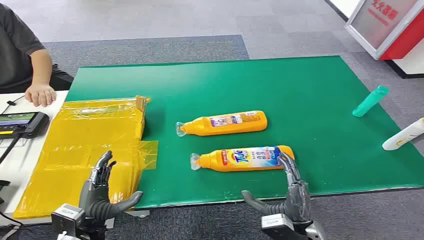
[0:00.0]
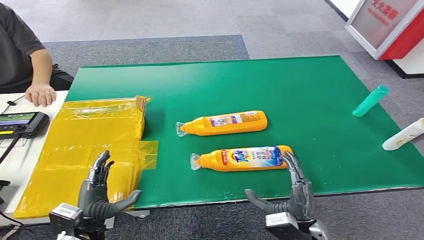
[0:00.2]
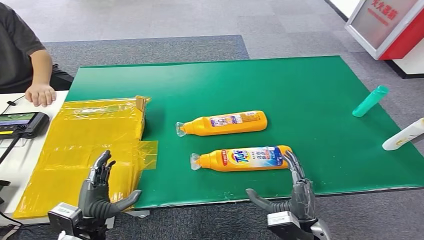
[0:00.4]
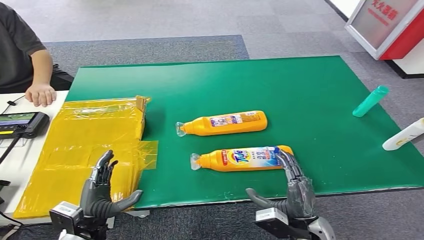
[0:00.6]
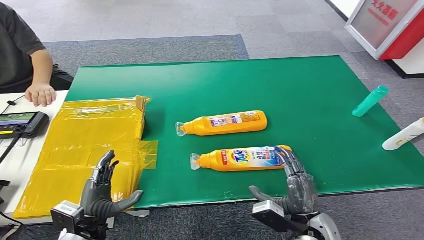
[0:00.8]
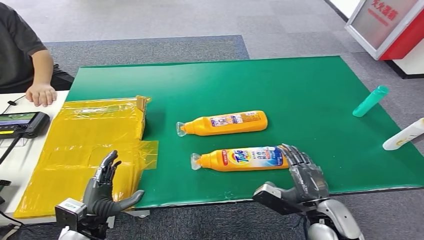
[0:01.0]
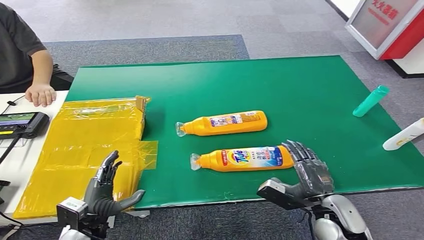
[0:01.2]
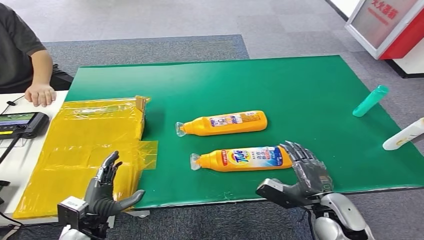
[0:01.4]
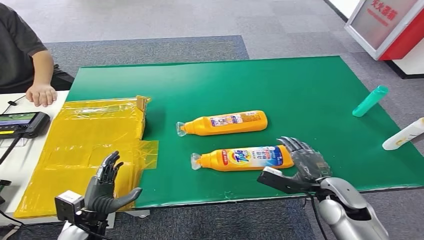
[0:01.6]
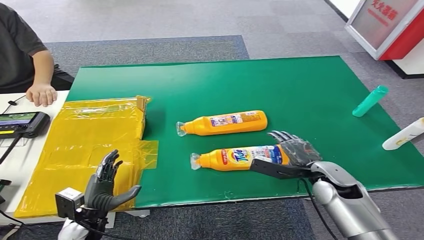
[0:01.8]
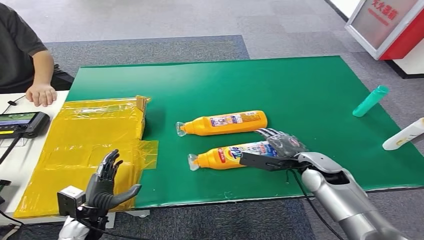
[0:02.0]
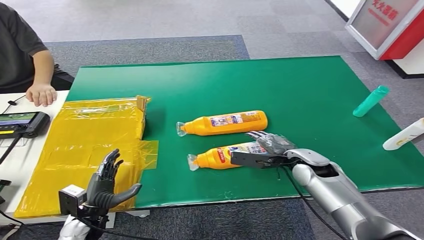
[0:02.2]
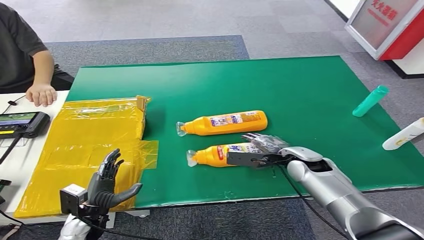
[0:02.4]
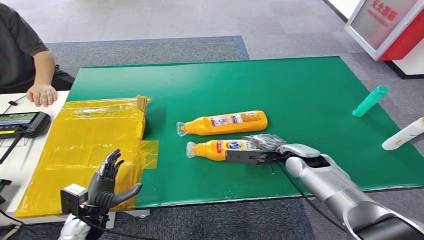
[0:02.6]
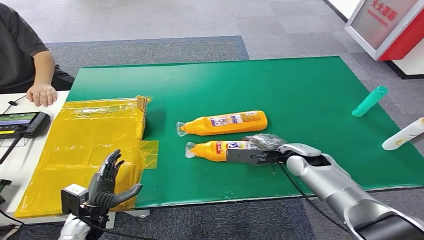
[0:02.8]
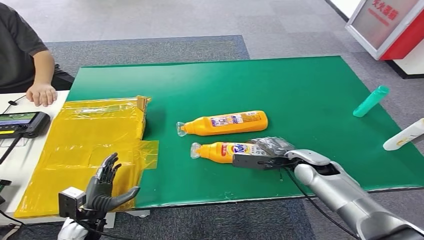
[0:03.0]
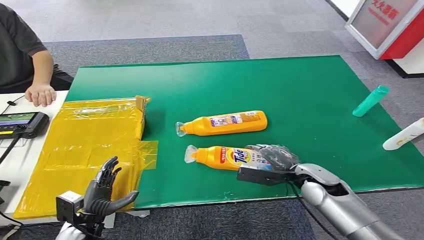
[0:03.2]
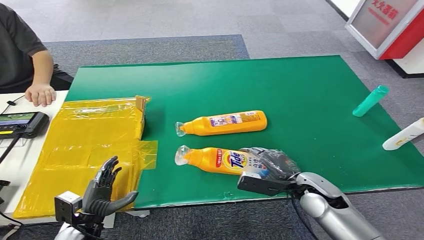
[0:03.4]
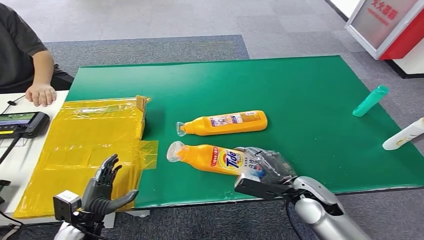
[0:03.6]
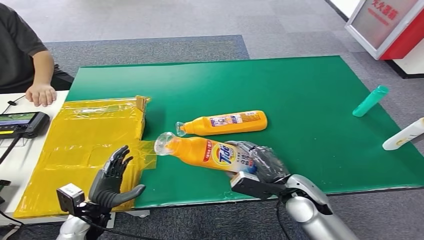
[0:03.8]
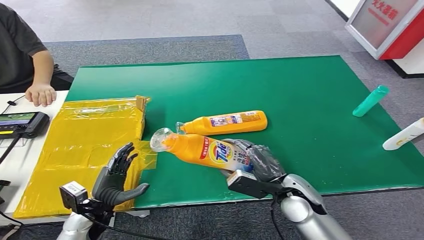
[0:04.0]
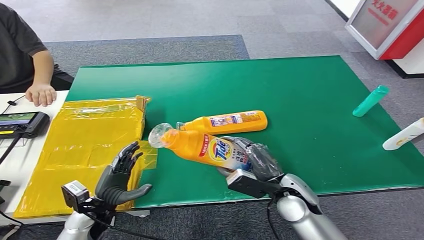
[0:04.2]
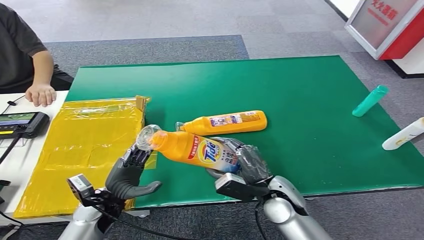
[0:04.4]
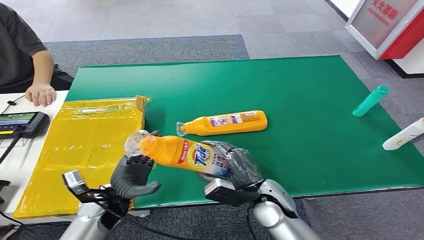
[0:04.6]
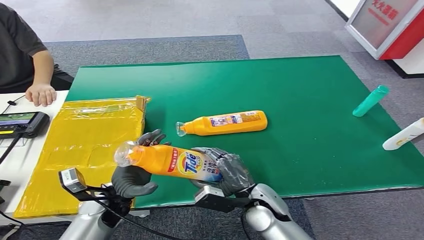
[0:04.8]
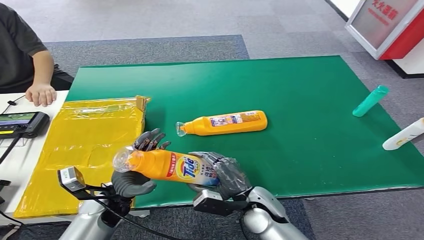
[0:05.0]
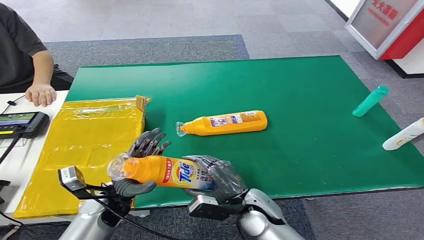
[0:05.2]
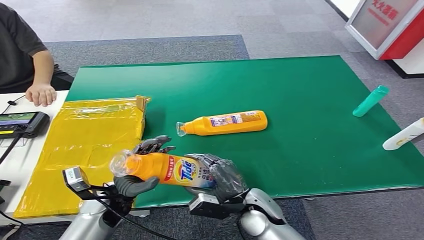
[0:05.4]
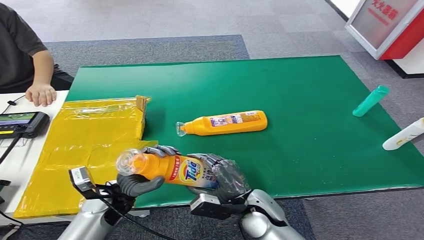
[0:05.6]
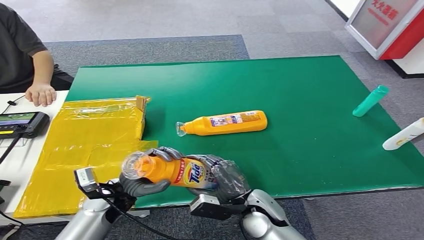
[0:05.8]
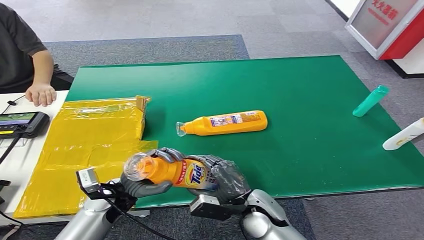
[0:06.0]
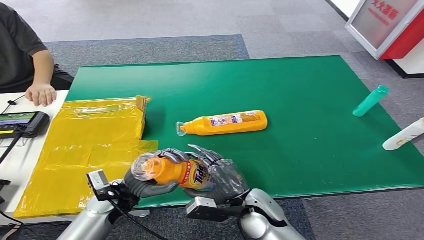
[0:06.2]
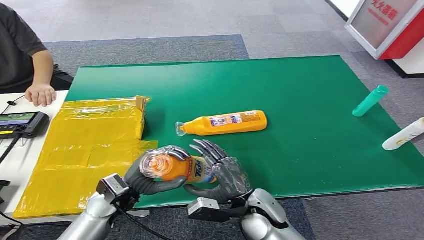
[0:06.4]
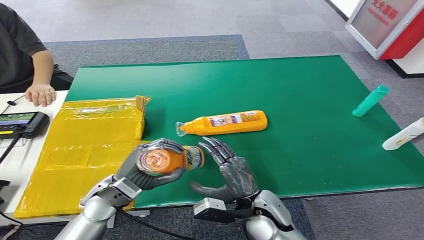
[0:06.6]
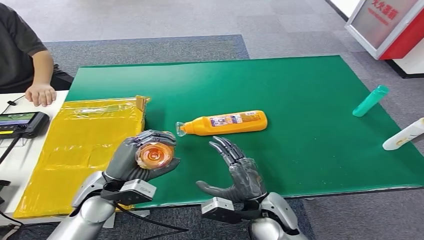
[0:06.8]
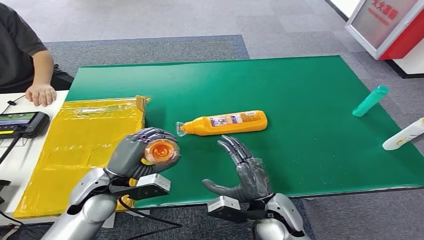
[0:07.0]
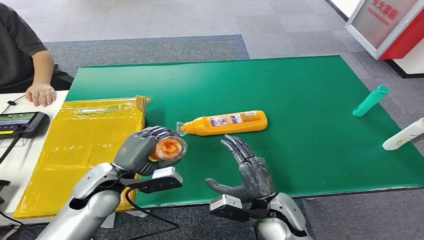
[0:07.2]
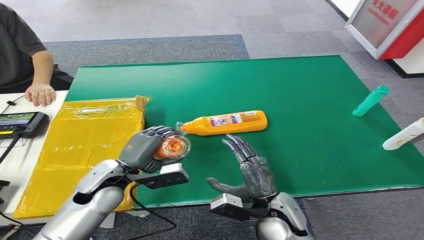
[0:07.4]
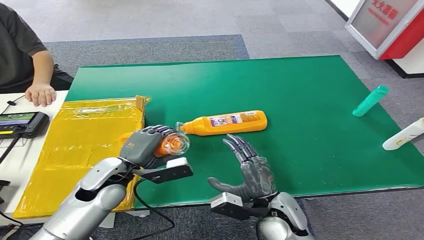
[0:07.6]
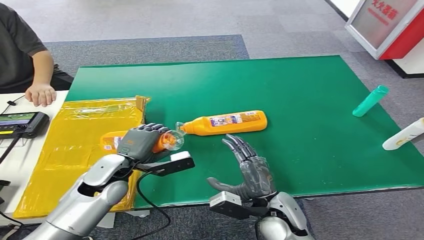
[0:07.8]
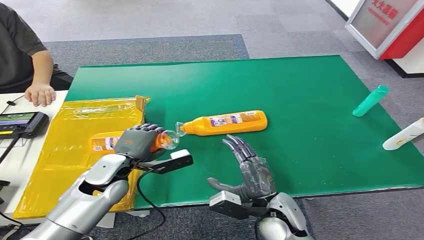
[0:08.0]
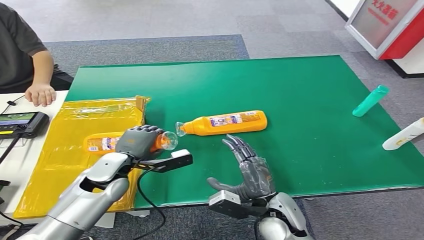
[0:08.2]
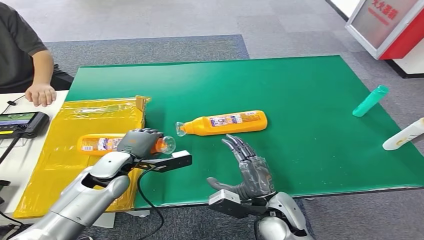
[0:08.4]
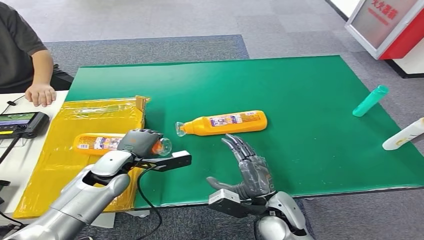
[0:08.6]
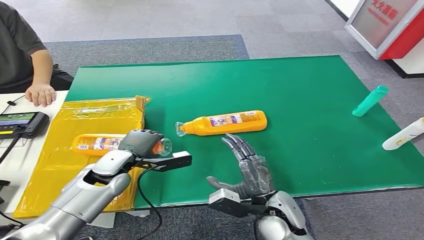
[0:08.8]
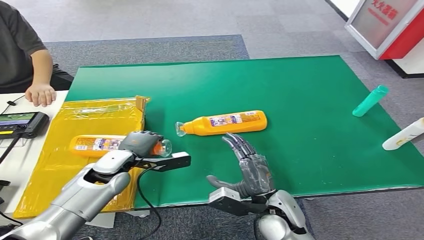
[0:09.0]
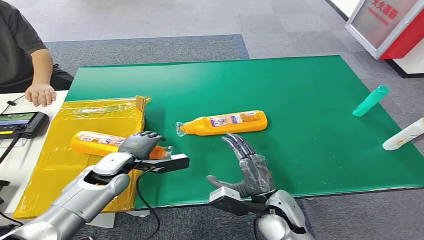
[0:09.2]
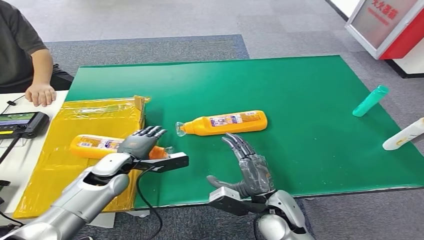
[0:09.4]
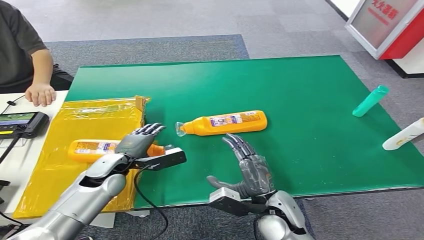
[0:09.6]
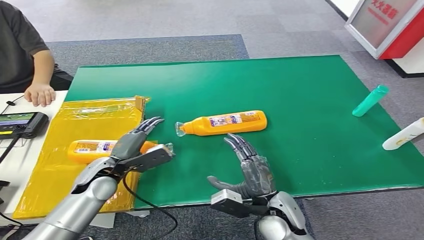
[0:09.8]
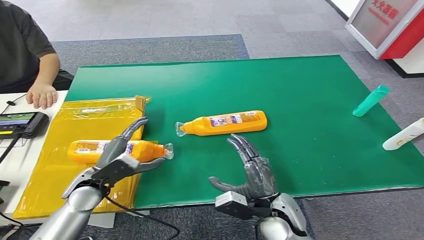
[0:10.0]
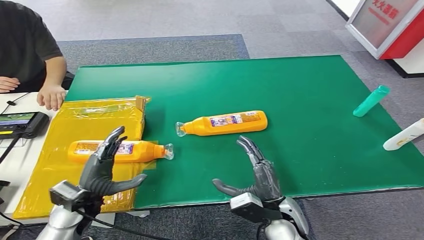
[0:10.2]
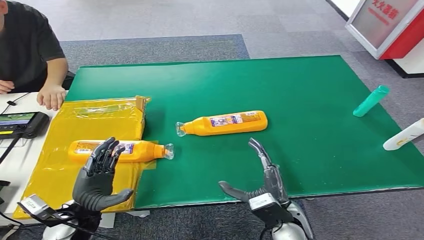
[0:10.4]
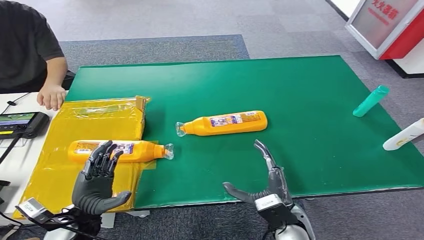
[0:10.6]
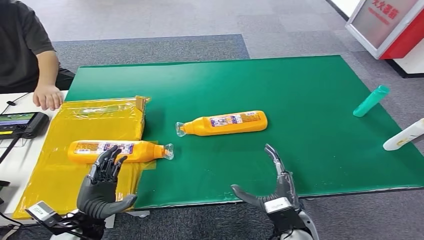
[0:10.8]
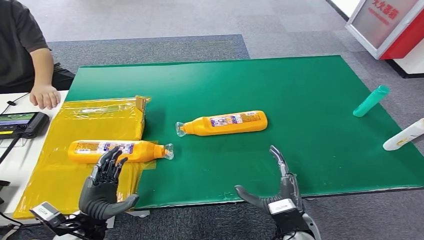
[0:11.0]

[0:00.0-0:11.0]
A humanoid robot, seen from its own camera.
Step, 0:00.0 to 0:04.6: Pick up the bottle from the table.
Step, 0:04.8 to 0:11.0: Turn the bottle to the front side.
0:03.2 to 0:04.8: The right hand moves to the left and backward, some 15 cm; the left hand heads to the right, upward and forward, covering some 15 cm.
0:04.8 to 0:06.2: The hands make only small movements.
0:06.2 to 0:07.8: The left hand shifts about 5 cm upward.
0:07.8 to 0:09.4: The left hand changes place by roughly 5 cm.
0:09.4 to 0:11.0: The left hand shifts about 15 cm backward, while the right hand changes place by some 5 cm.
